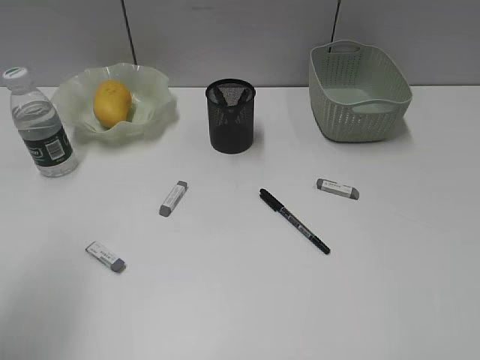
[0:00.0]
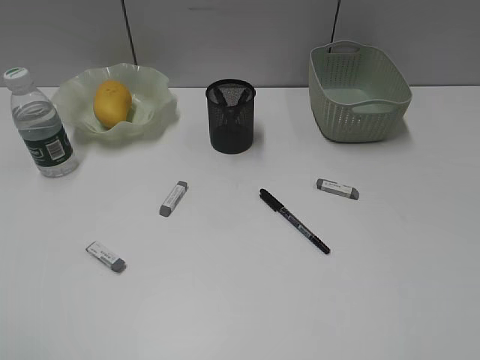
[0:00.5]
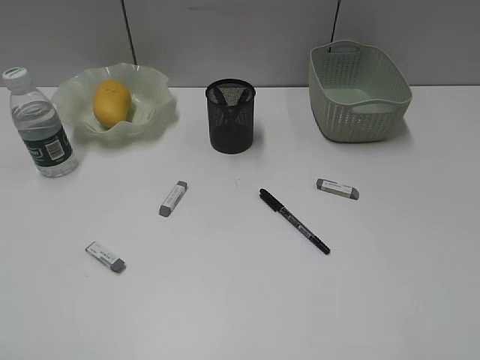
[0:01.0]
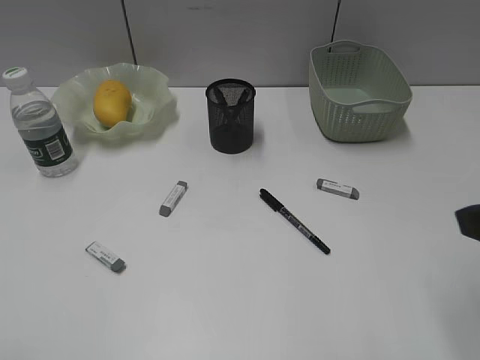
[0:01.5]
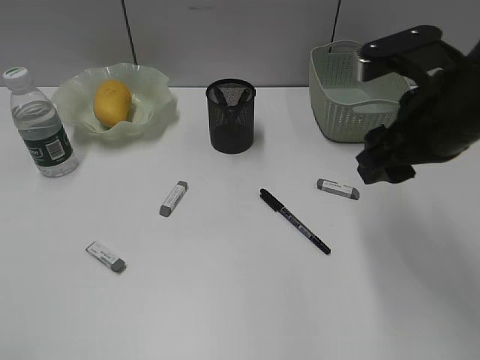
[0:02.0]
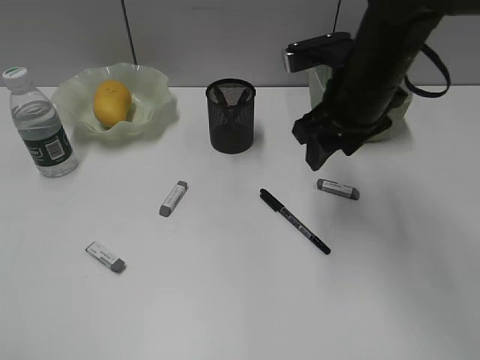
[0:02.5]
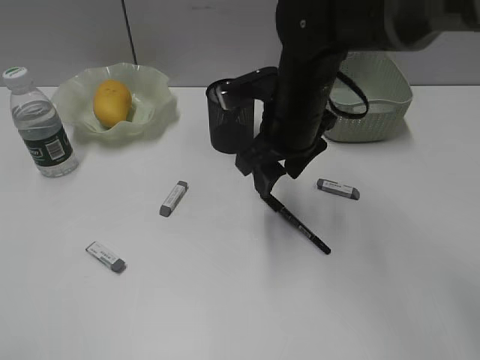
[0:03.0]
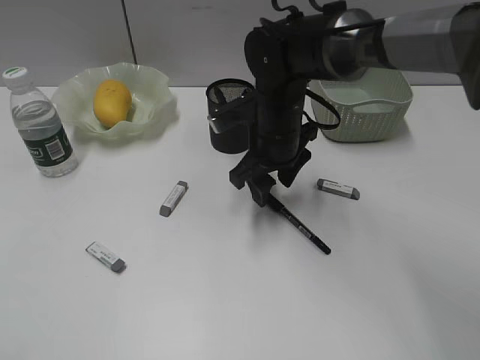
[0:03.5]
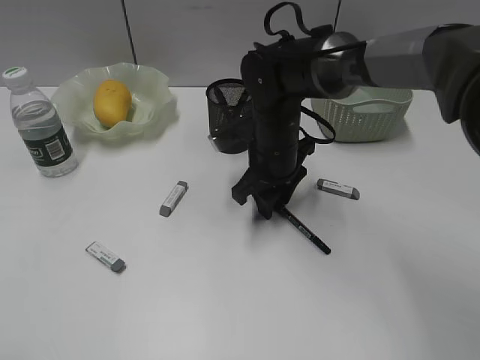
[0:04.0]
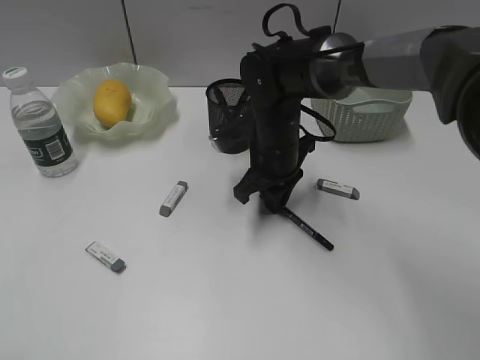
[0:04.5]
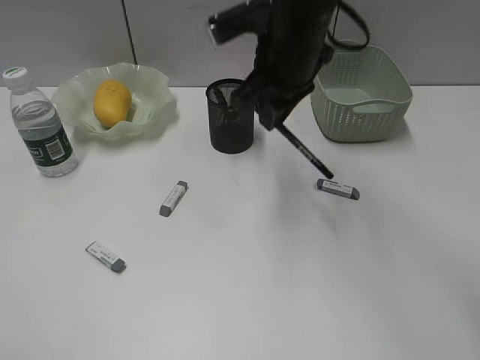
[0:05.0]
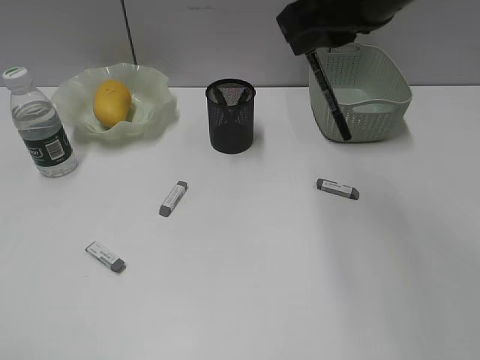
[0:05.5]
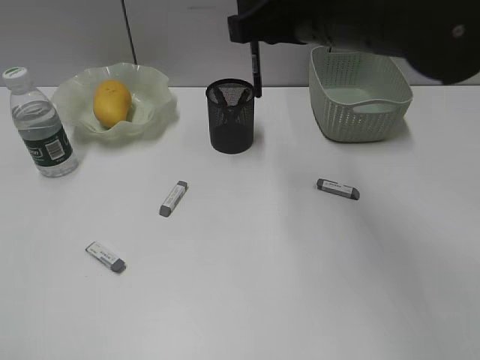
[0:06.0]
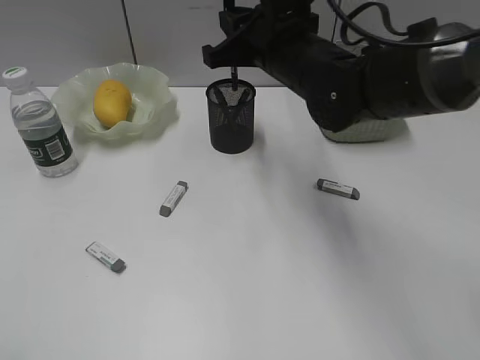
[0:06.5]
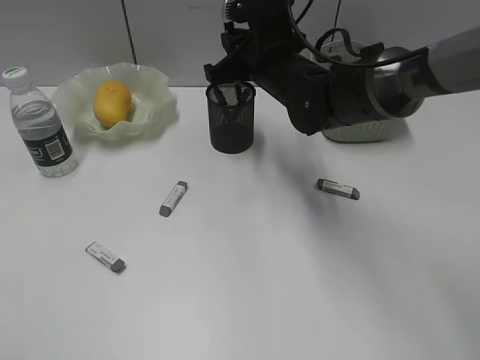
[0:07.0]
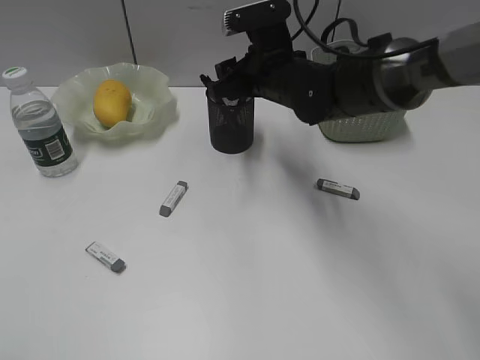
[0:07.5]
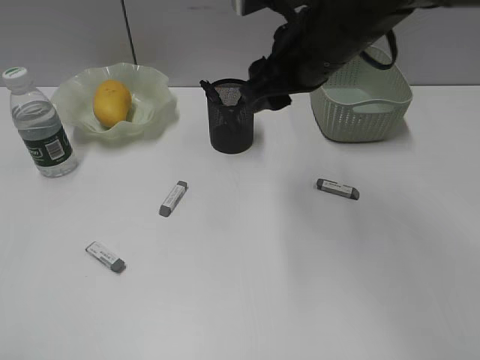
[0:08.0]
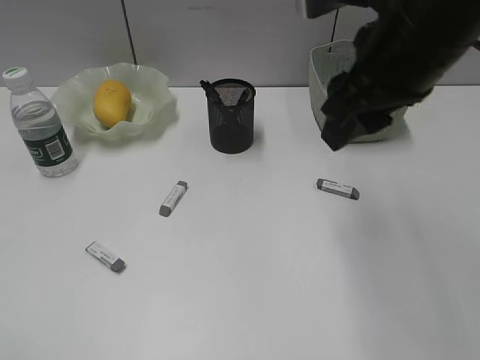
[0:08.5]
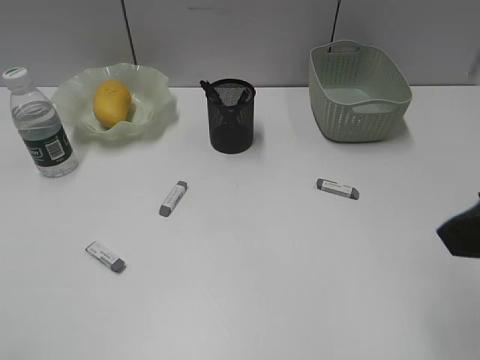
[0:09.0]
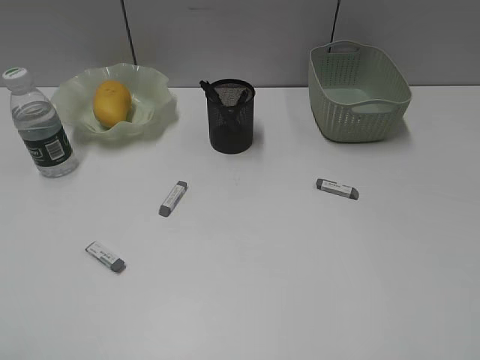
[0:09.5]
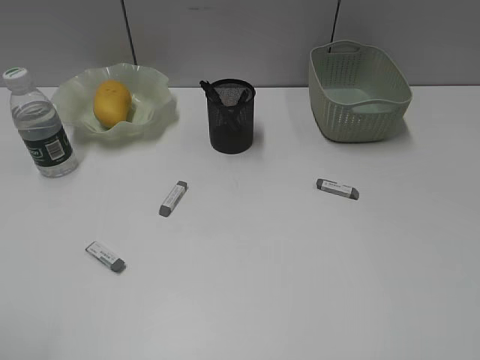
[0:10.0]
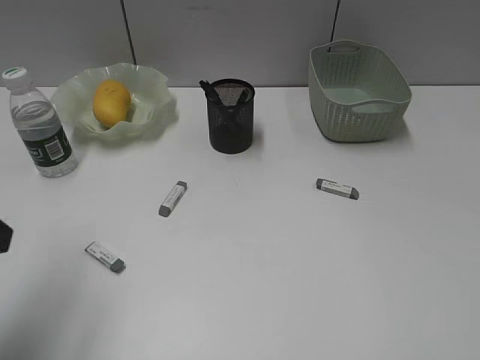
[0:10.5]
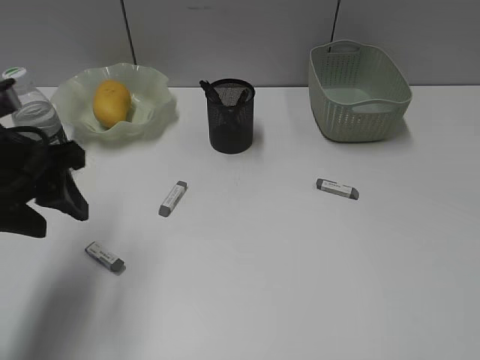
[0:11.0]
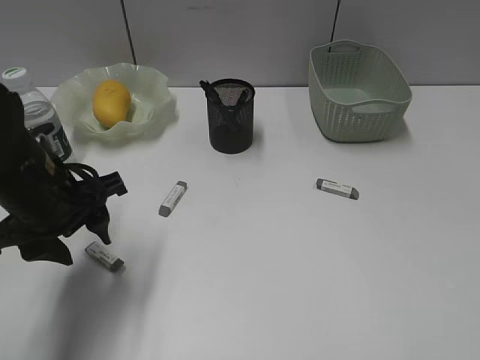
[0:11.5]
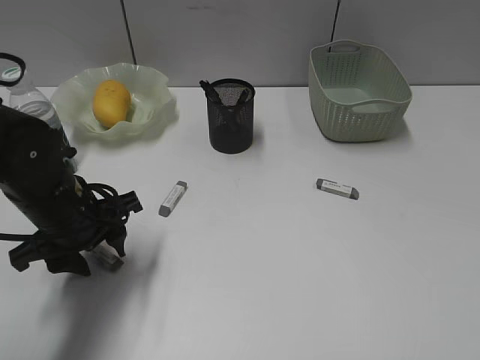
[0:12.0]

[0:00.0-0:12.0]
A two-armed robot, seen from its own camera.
Step, 0:00.0 to 0:04.0: Grasp the black pen with right gripper.
Step, 0:04.5 to 0:07.5: Place the black pen in pen holder with right gripper.
0:00.0 to 0:02.0: The right gripper goes some 30 cm forward and to the left, while the left gripper goes approximately 15 cm backward.
0:02.0 to 0:04.0: The right gripper moves downward, to the left and forward, roughly 25 cm.
0:04.0 to 0:06.0: The right gripper goes some 20 cm upward, and closes.
0:06.0 to 0:08.0: The right gripper goes downward and returns, about 10 cm each way, and opens.
0:08.0 to 0:10.0: The right gripper moves backward and to the right, some 40 cm.
0:10.0 to 0:12.0: The left gripper heads forward, downward and to the right, covering roughly 35 cm.

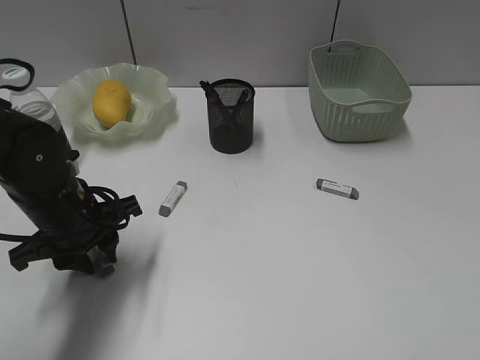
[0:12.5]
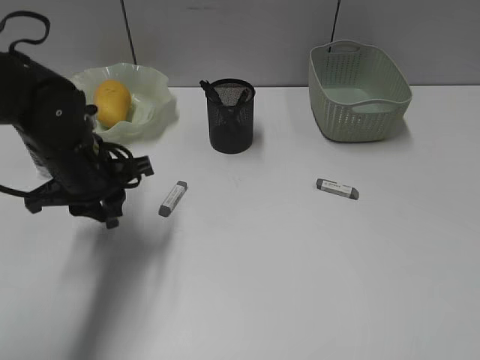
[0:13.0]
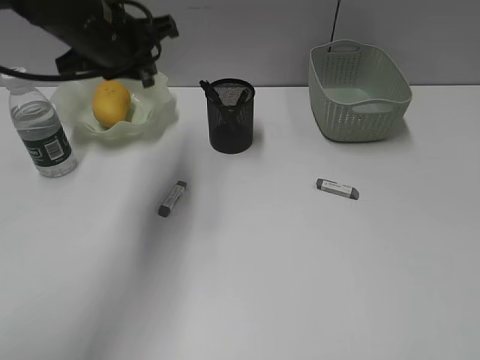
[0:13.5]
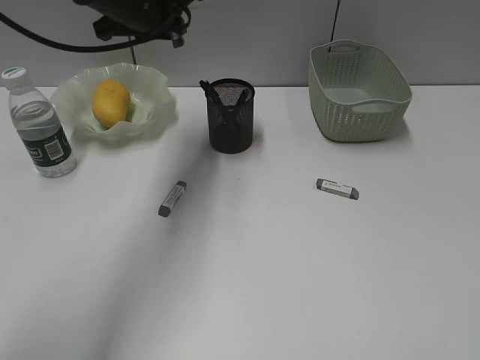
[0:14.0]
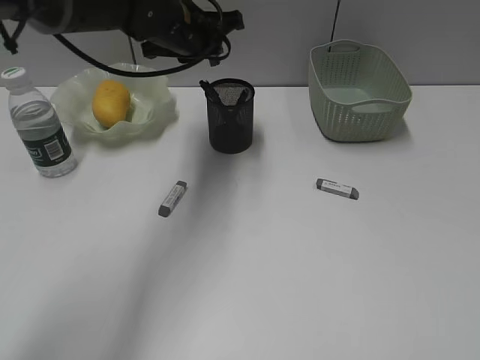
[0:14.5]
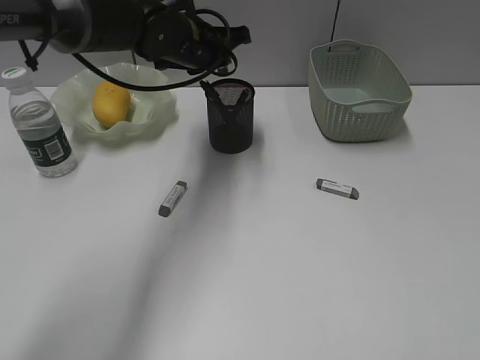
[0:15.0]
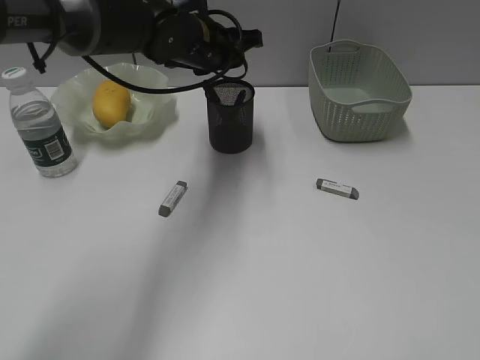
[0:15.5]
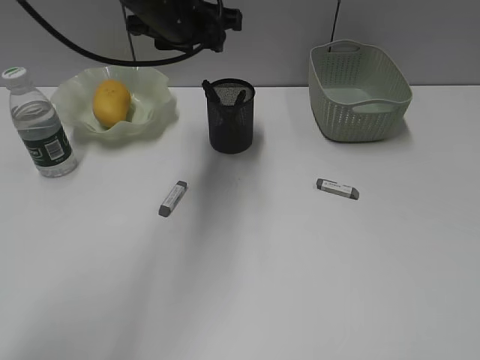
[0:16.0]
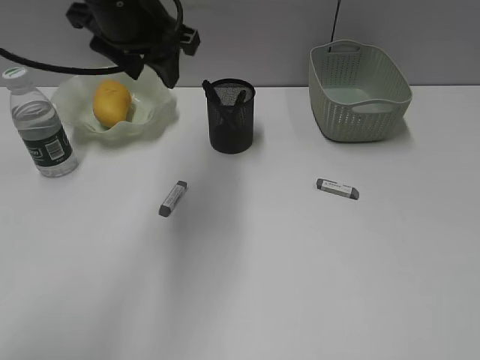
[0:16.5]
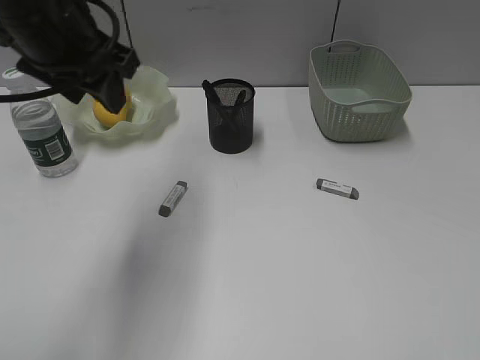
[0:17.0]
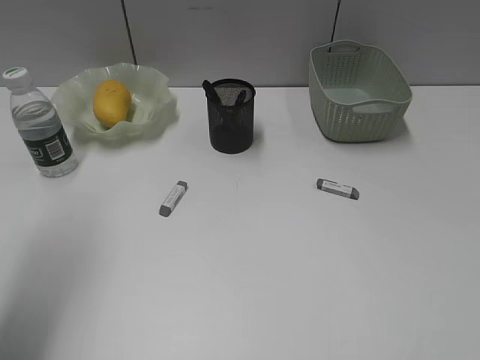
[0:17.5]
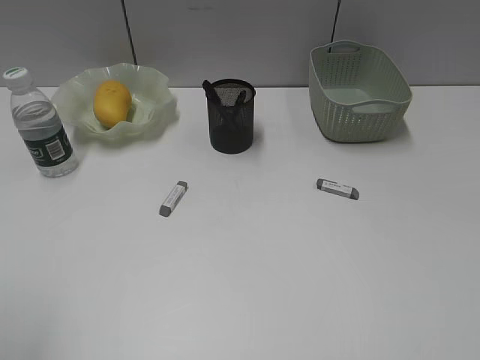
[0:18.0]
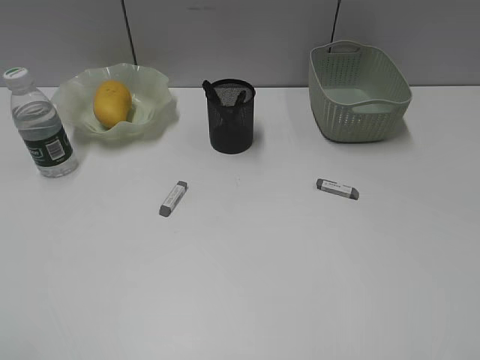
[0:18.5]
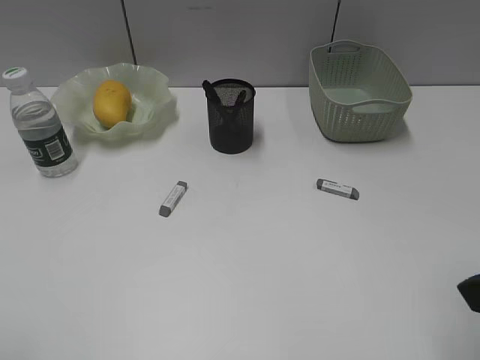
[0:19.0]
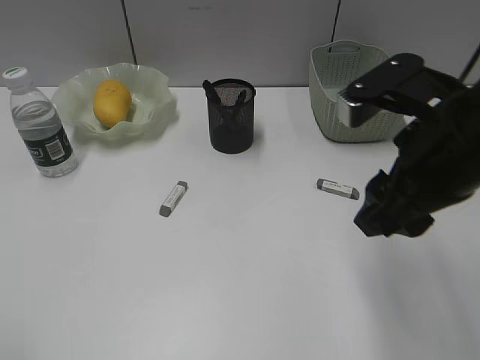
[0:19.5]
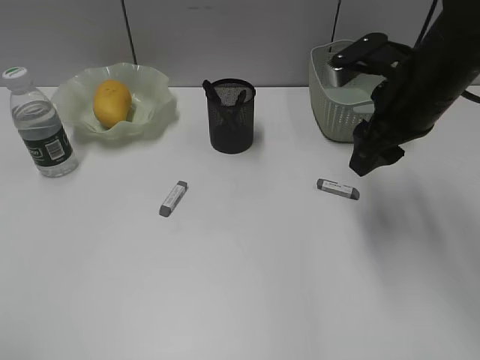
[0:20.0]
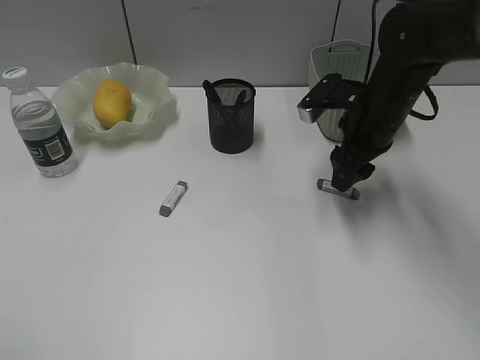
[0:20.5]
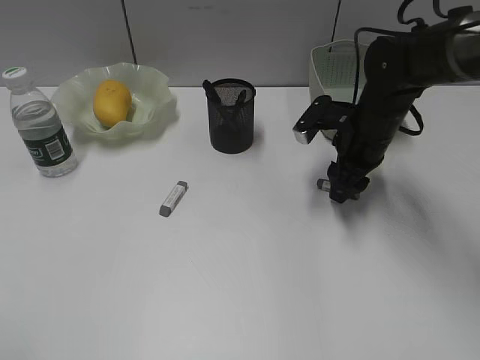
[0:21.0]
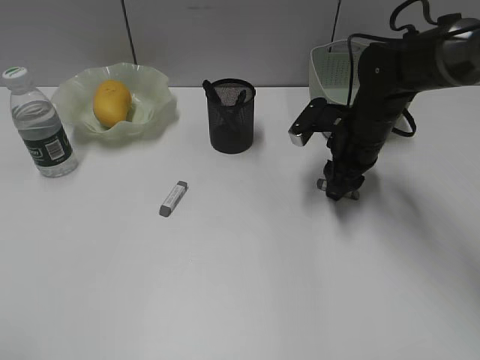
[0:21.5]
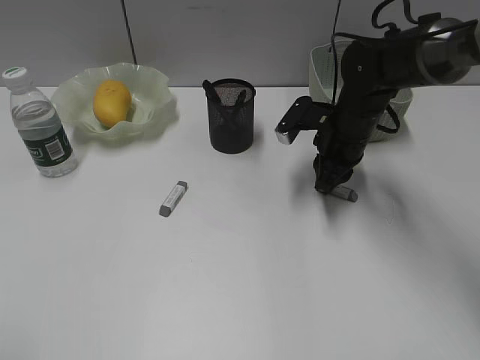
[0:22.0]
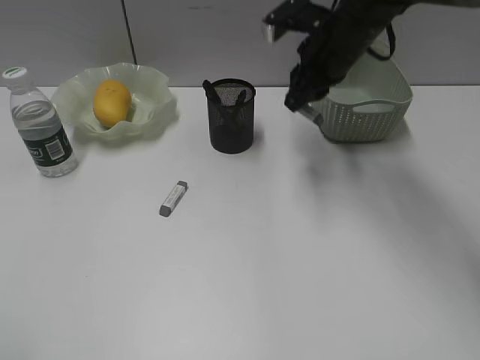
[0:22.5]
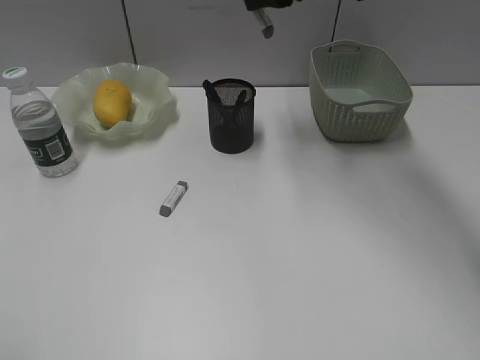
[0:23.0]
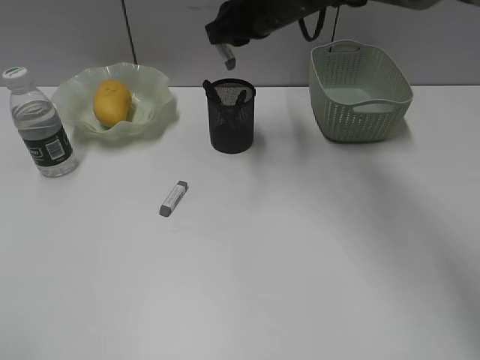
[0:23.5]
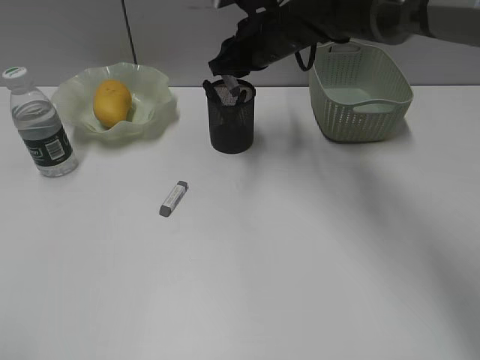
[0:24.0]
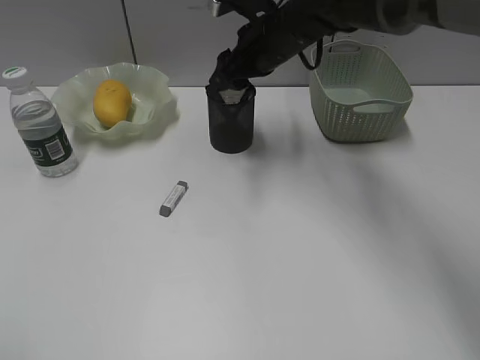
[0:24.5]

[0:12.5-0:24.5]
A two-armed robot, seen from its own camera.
Step, 0:13.0 to 0:15.5: Place the eraser in pen holder with left gripper.
Step, 0:16.0 to 0:21.5: Grasp the eraser with right gripper.
Step, 0:22.0 to 0:24.0: Place the eraser in pen holder with right gripper.
0:12.5 to 0:14.5: The left gripper travels forward, upward and to the right by roughly 25 cm.
0:14.5 to 0:16.5: The left gripper is displaced backward and upward by approximately 10 cm, and opens its fingers.
0:16.5 to 0:18.5: The left gripper travels backward and to the left by roughly 40 cm.
0:18.5 to 0:20.5: The right gripper moves forward and downward, approximately 35 cm.
0:20.5 to 0:22.5: The right gripper shifts approximately 5 cm upward, and closes its fingers.
0:22.5 to 0:24.5: The right gripper is displaced to the left by about 5 cm, goes upward and returns, approximately 10 cm each way, and opens up.

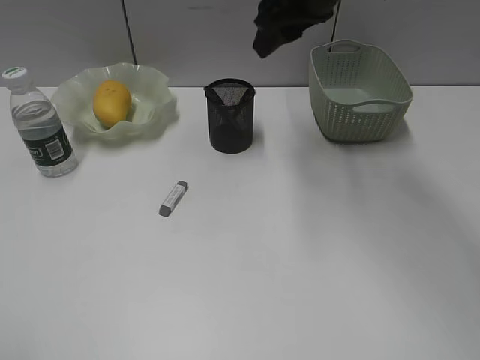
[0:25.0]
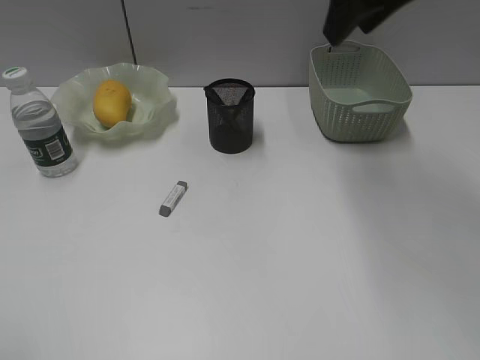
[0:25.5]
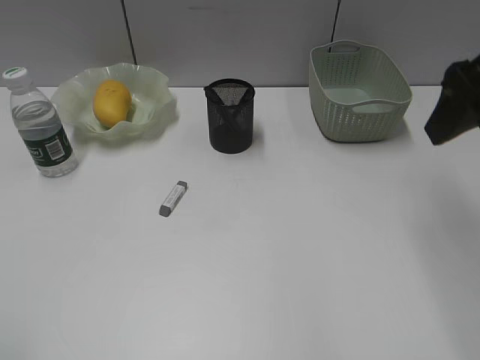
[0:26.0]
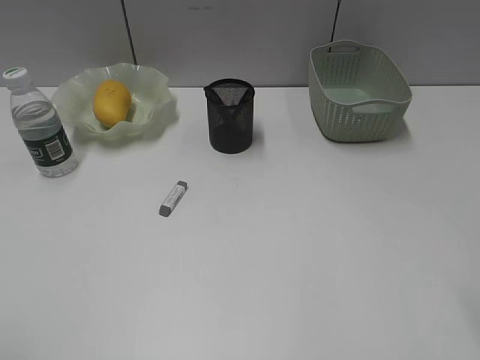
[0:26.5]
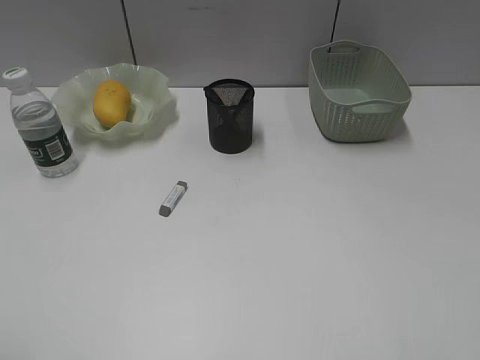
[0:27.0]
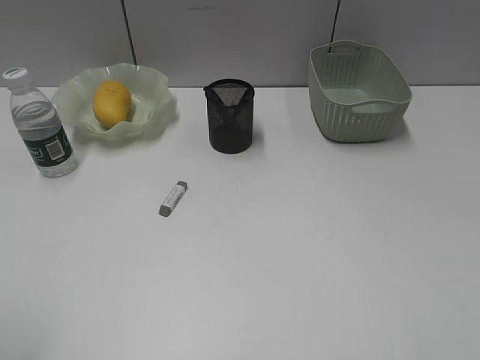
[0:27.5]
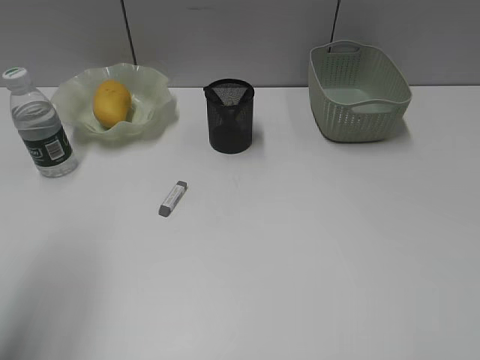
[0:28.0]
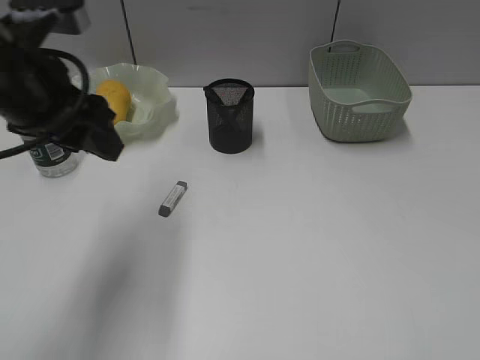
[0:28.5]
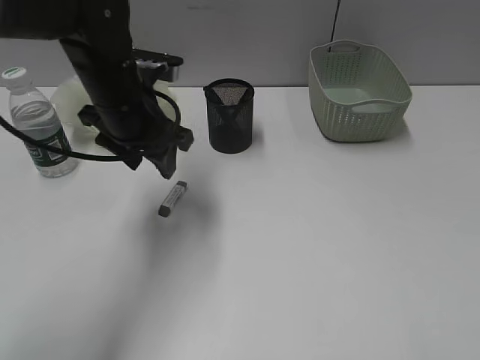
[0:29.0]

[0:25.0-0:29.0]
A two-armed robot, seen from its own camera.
0:25.0 to 0:27.0: The right gripper moves backward and to the right, roughly 40 cm.
0:27.0 to 0:29.0: The left gripper travels forward and to the right by some 40 cm.
